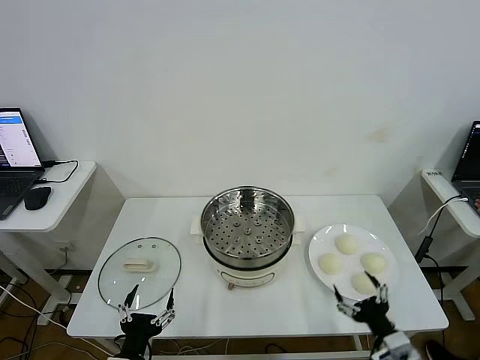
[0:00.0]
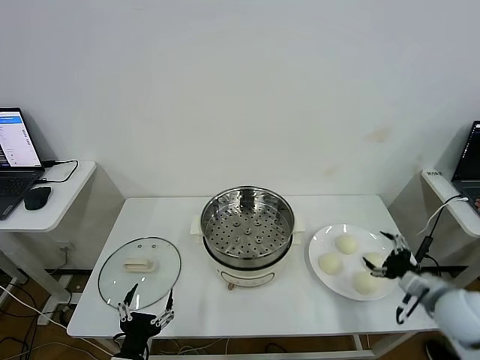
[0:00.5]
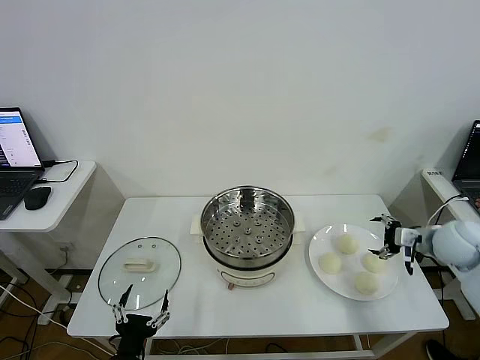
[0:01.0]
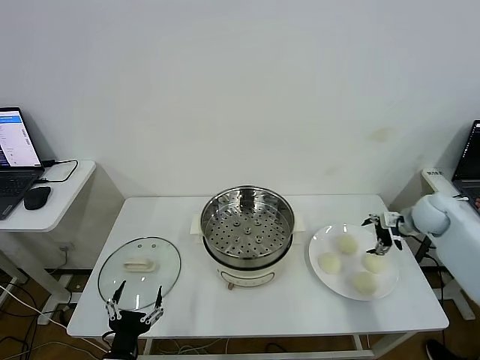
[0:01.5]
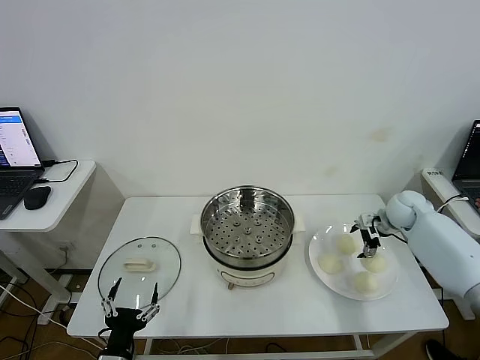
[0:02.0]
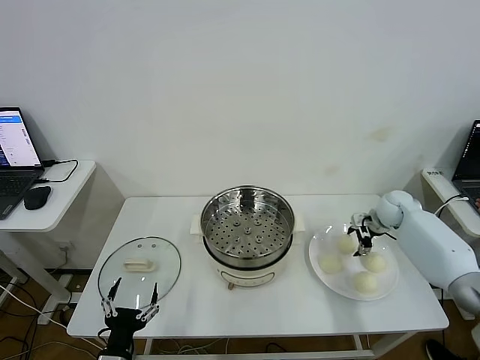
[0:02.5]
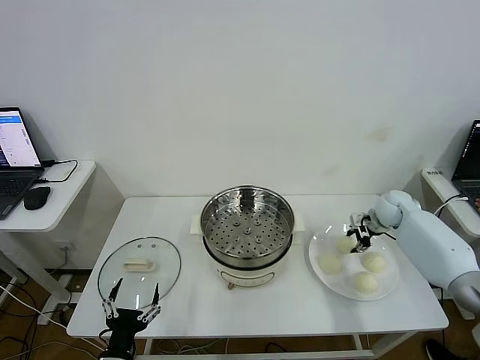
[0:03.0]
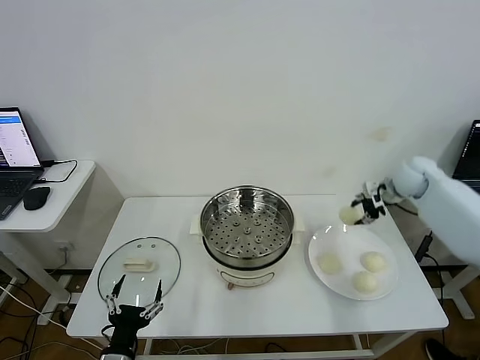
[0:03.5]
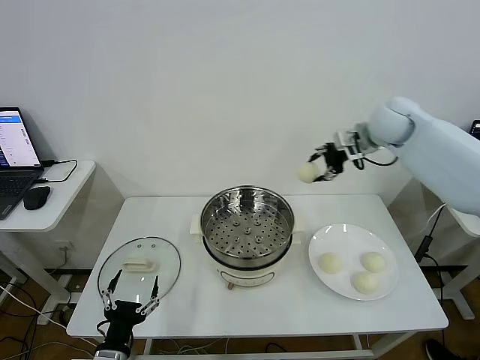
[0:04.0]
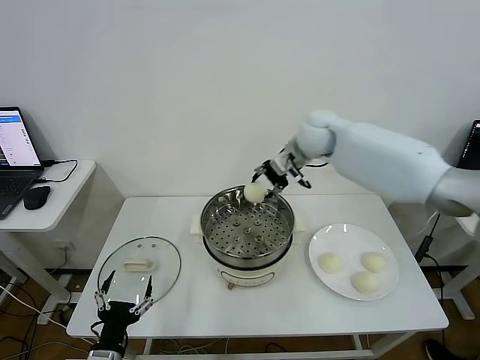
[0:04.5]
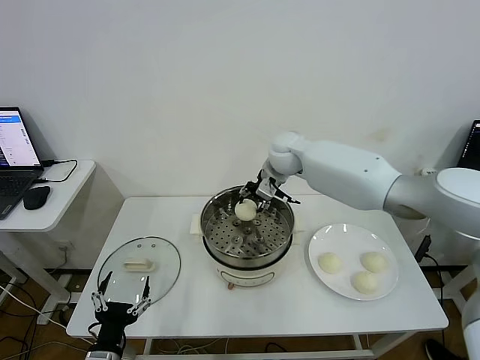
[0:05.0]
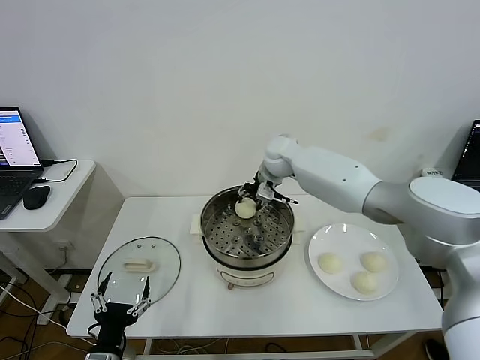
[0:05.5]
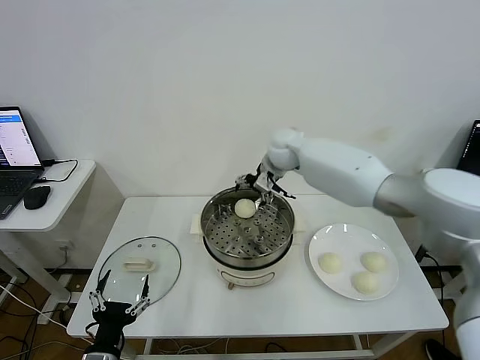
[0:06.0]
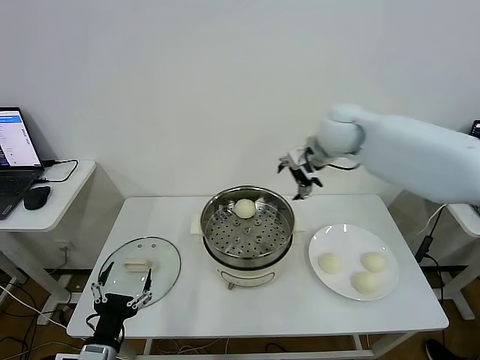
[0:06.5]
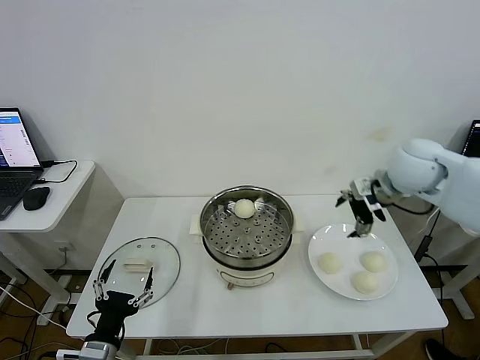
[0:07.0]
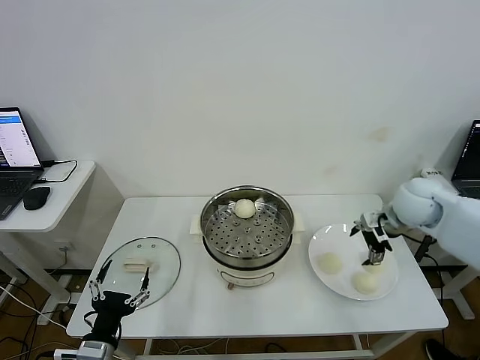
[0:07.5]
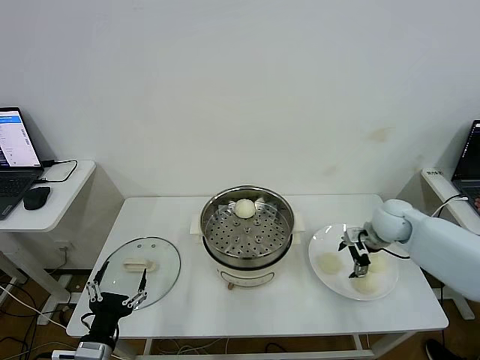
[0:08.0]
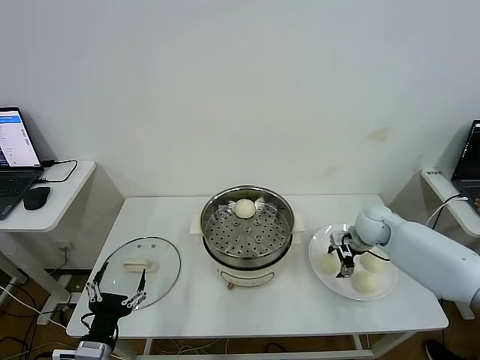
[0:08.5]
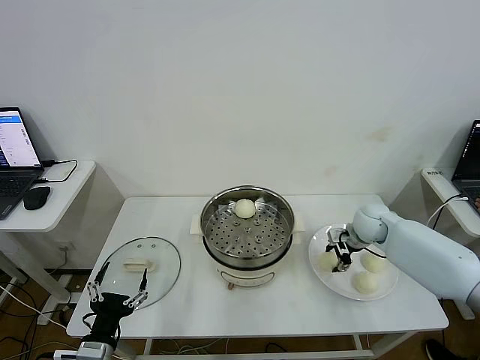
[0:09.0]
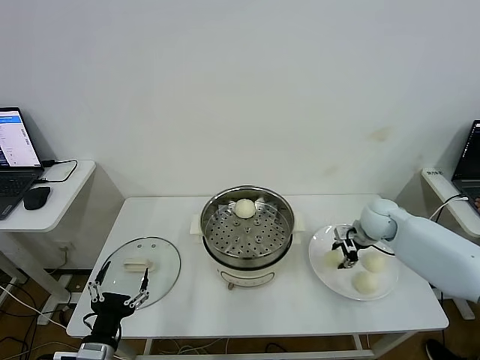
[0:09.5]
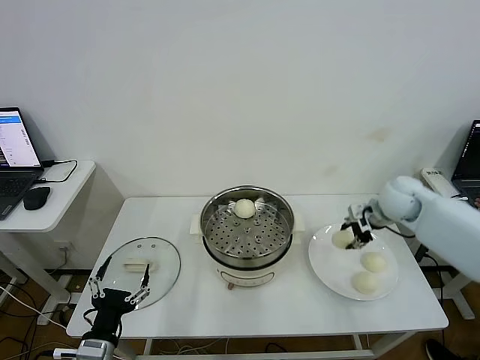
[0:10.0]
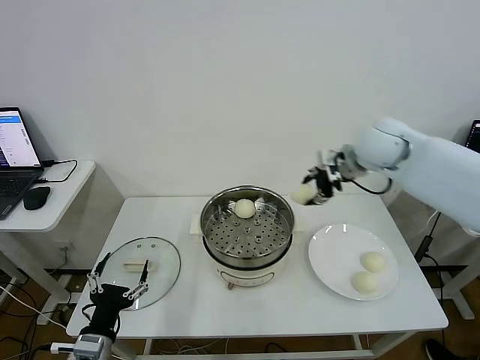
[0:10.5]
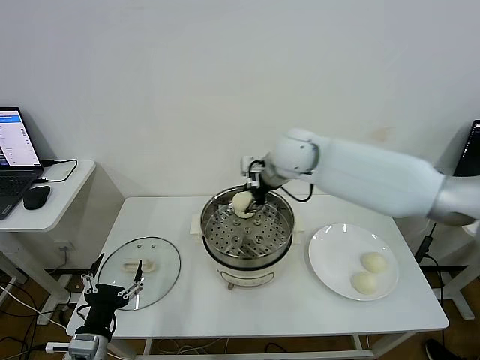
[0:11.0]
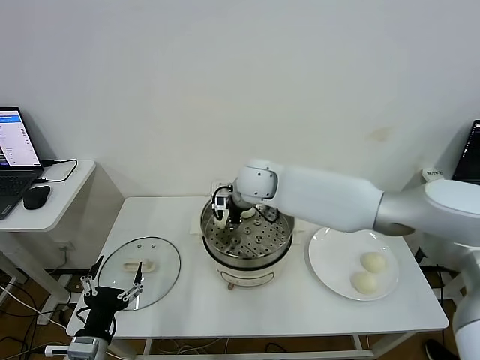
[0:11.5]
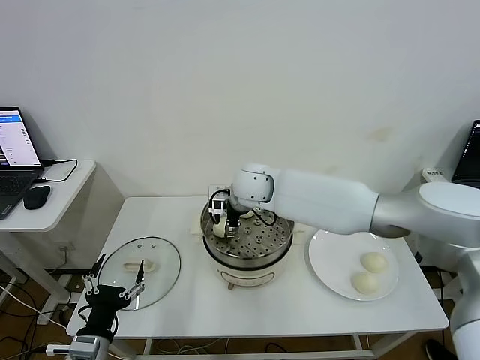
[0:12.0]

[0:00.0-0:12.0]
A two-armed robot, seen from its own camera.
Step, 0:00.0 to 0:02.5: Grasp the baozi in the plate with right gripper.
Step, 0:03.0 to 0:05.5: Place the baozi on the steamer with right gripper.
Step, 0:06.0 to 0:09.0: Grasp the baozi in the plate with right gripper.
0:02.0 to 0:04.0: The right gripper travels upward and to the left by about 25 cm, and closes up.
0:04.0 to 0:06.0: The right gripper is displaced to the left and downward by roughly 20 cm, and opens up.
0:06.0 to 0:08.0: The right gripper moves to the right, backward and downward, roughly 30 cm.
0:08.0 to 0:10.0: The right gripper moves upward, roughly 5 cm, and closes its fingers.
0:10.0 to 0:12.0: The right gripper is displaced to the left by approximately 35 cm, and opens up.

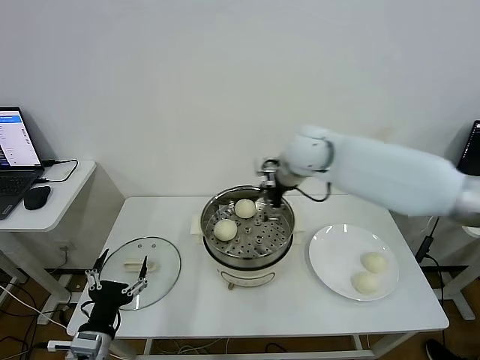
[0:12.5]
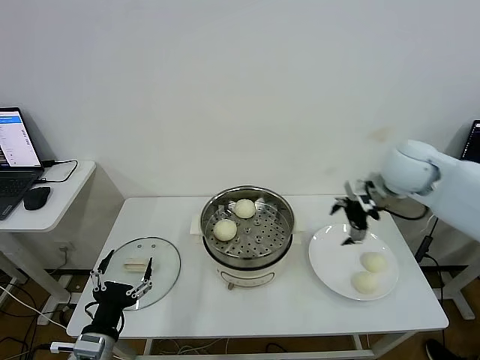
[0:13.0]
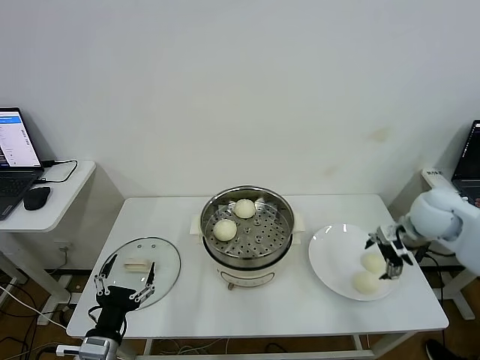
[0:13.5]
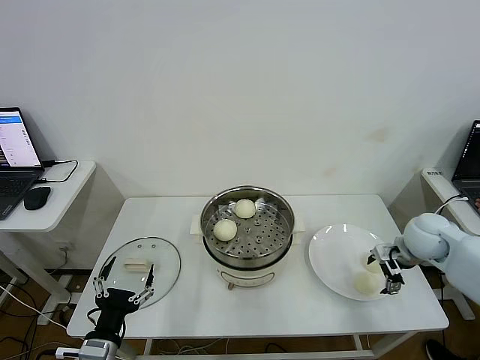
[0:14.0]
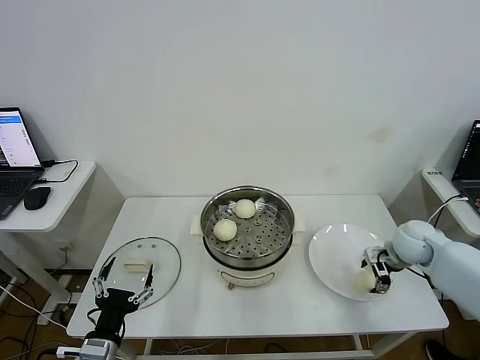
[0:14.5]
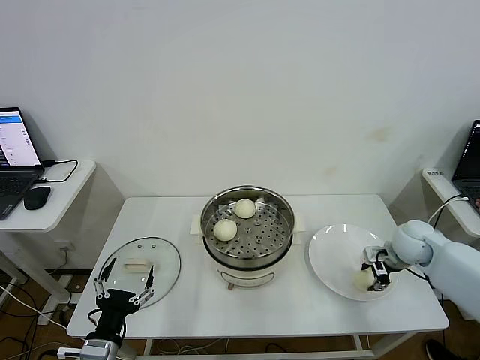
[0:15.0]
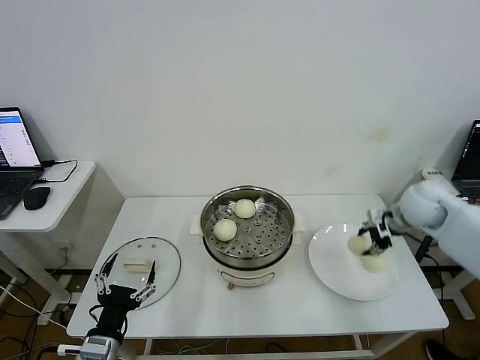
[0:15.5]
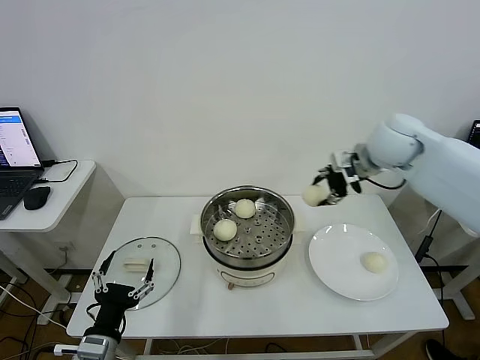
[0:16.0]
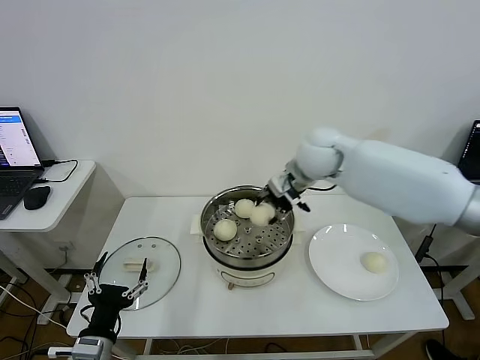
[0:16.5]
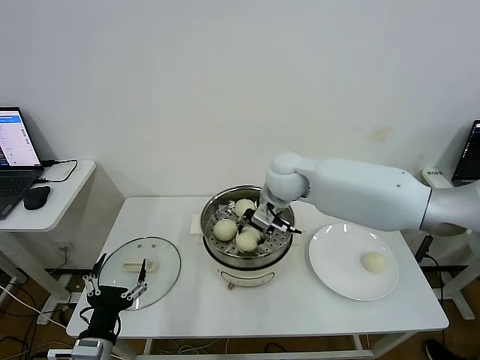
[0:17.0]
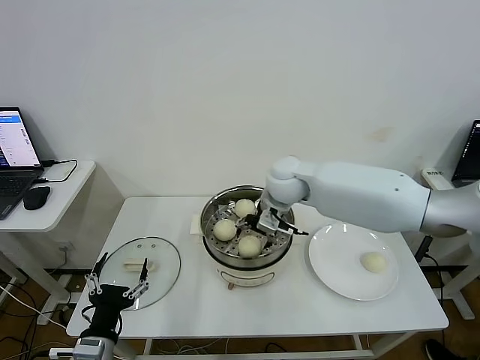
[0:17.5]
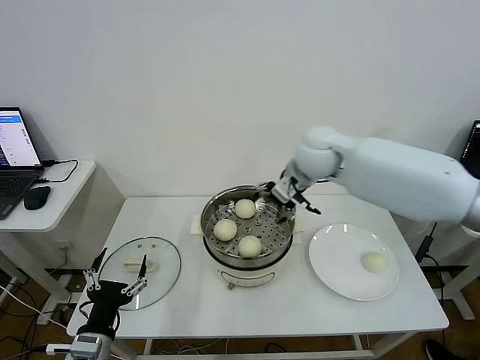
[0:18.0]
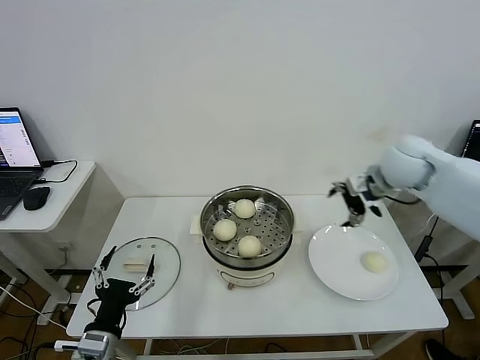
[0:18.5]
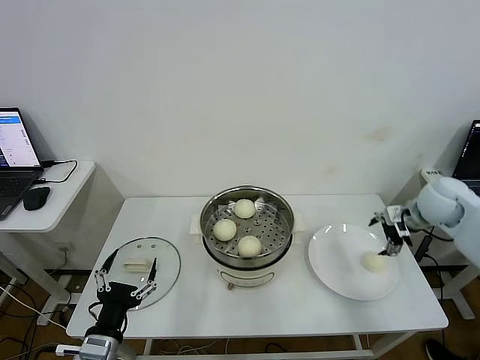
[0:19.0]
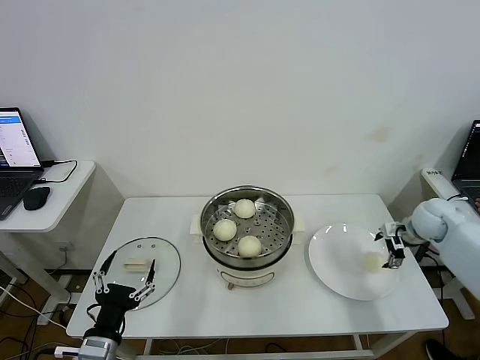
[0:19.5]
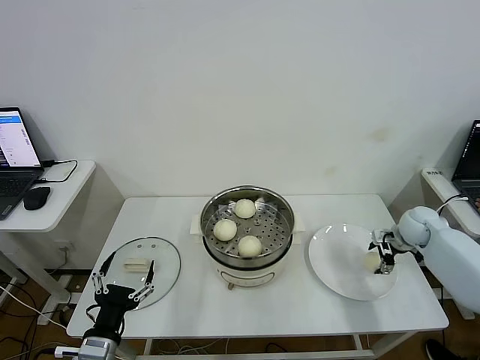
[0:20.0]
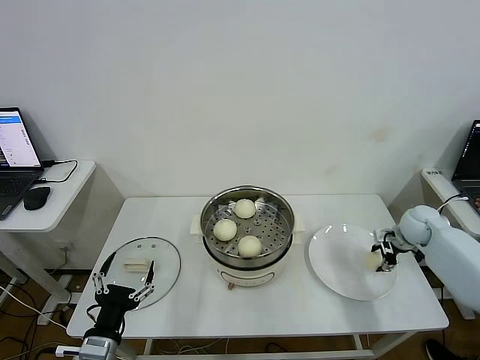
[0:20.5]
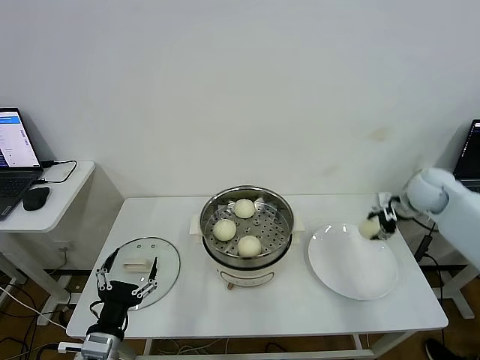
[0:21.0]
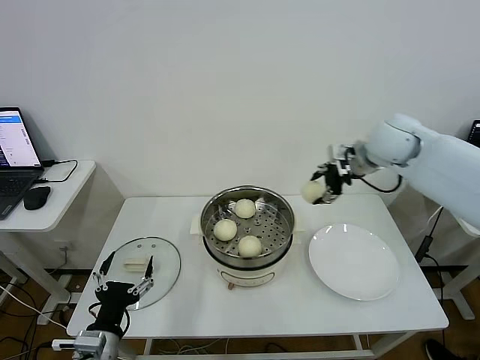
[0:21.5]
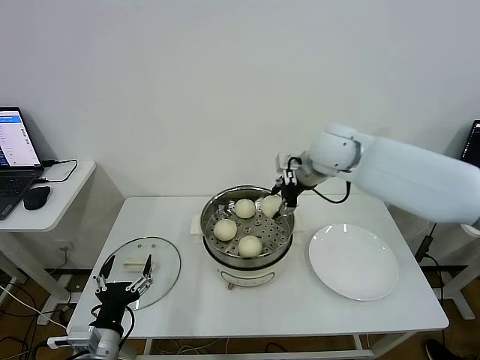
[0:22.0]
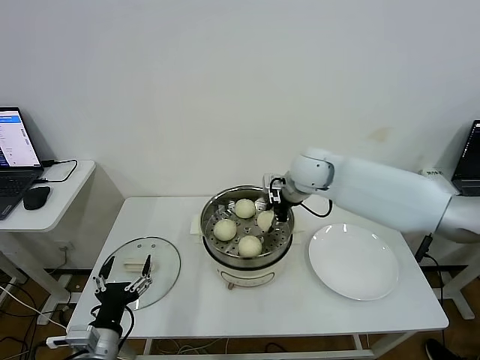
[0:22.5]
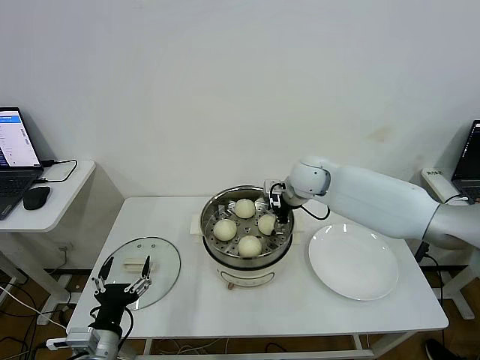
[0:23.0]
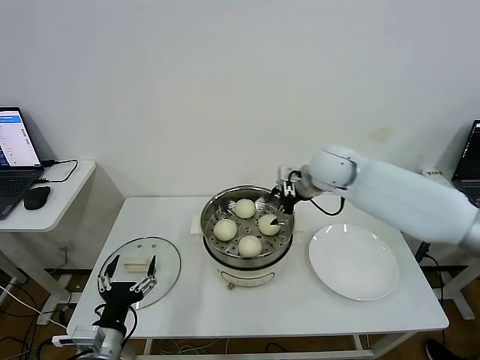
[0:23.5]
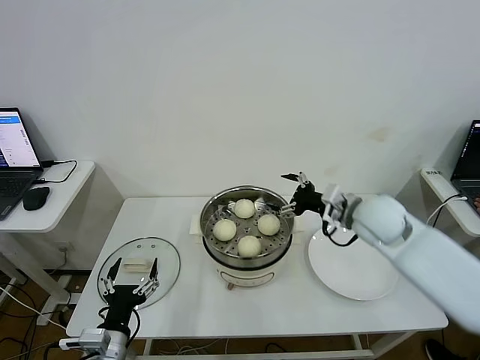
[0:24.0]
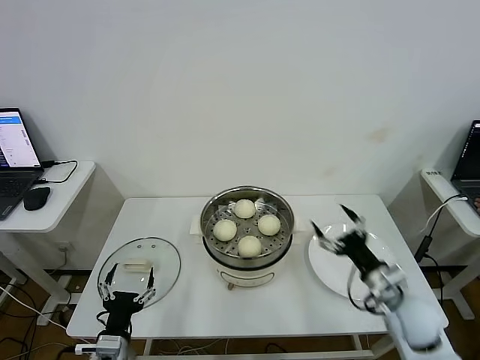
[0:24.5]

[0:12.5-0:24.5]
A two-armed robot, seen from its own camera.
Step, 0:12.5 to 0:14.5: Grasp the baozi in the plate with right gripper.
Step, 0:15.5 to 0:17.5: Place the baozi on the steamer with right gripper.
Step, 0:18.0 to 0:20.0: Grasp the baozi in the plate with right gripper.
Step, 0:20.5 to 0:23.5: Place the baozi on the steamer with right gripper.
0:12.5 to 0:14.5: The right gripper moves to the right and downward, approximately 35 cm.
0:14.5 to 0:16.5: The right gripper heads to the left and upward, covering roughly 30 cm, and closes up.
0:16.5 to 0:18.5: The right gripper goes about 15 cm to the right, and opens.
0:18.5 to 0:20.5: The right gripper moves downward and to the right, some 25 cm, and closes.
0:20.5 to 0:22.5: The right gripper is displaced to the left and upward by some 35 cm.
0:22.5 to 0:24.5: The right gripper travels backward, to the right and downward by approximately 35 cm, and opens. Meanwhile the left gripper heads downward, covering about 5 cm.

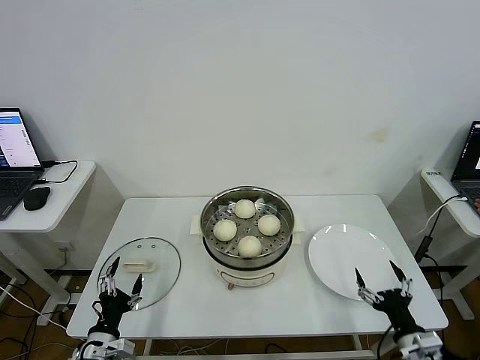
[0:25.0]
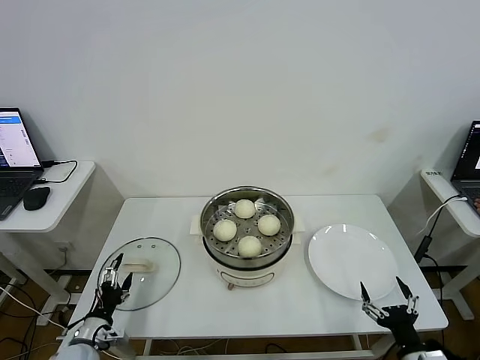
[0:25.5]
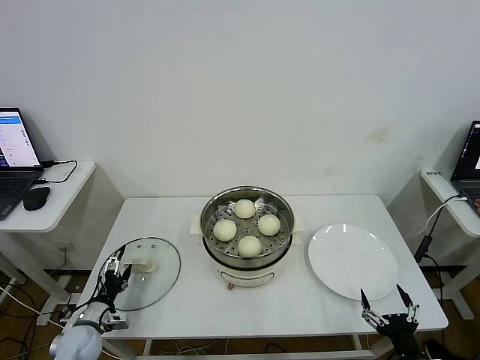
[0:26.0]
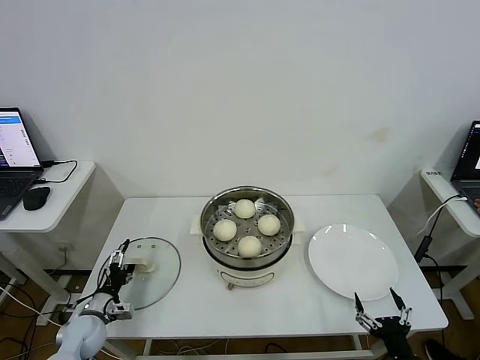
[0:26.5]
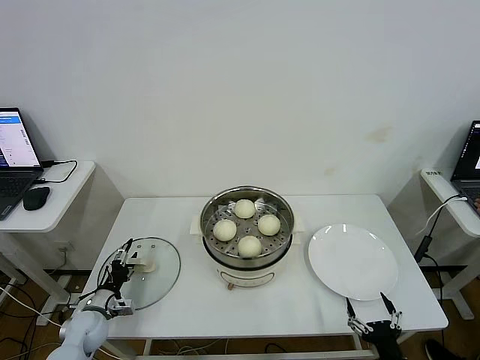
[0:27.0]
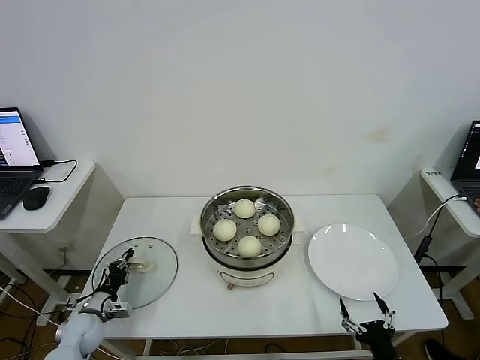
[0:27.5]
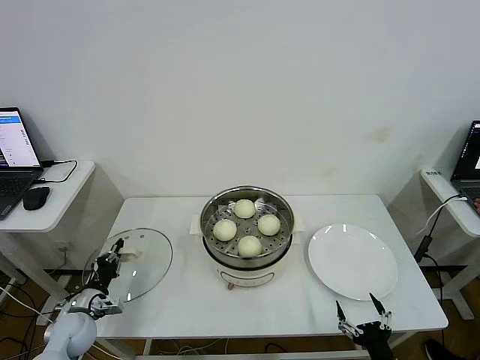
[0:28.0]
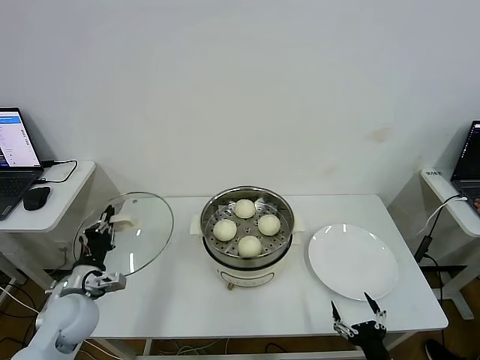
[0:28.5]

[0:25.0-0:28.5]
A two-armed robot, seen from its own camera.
Step, 0:25.0 to 0:27.5: Grasp the pot lid with left gripper.
0:25.0 to 0:27.0: The right gripper heads backward, covering about 5 cm. Meanwhile the left gripper travels forward, to the left and downward by about 15 cm.
0:27.0 to 0:28.5: The left gripper shifts some 15 cm upward, and closes up.
